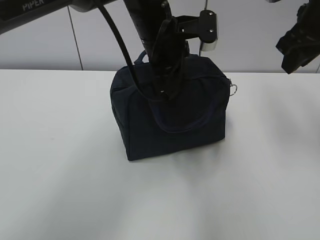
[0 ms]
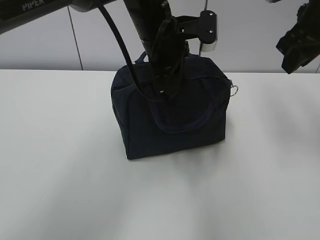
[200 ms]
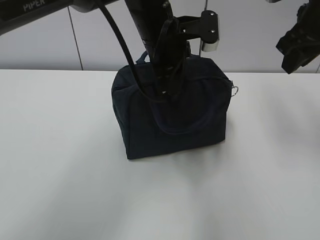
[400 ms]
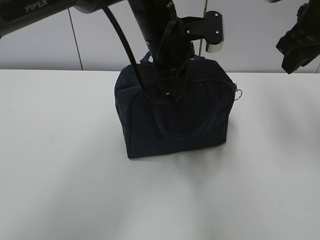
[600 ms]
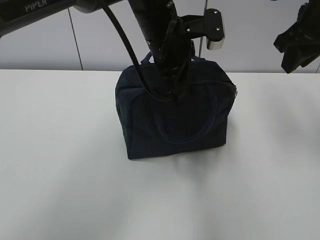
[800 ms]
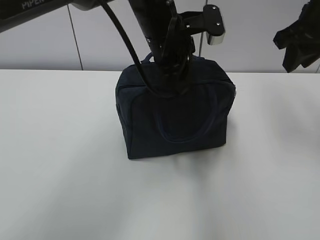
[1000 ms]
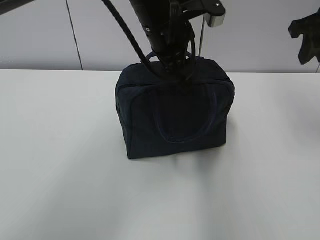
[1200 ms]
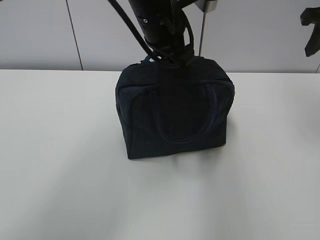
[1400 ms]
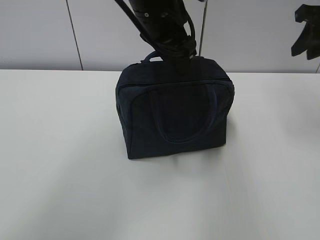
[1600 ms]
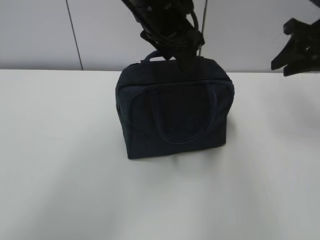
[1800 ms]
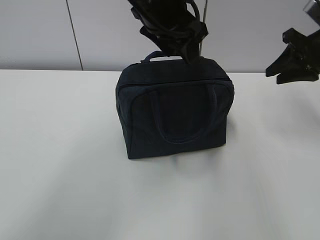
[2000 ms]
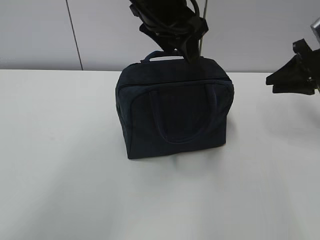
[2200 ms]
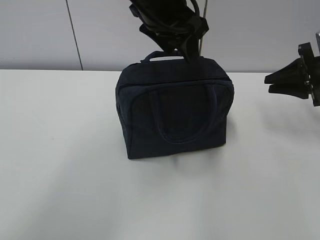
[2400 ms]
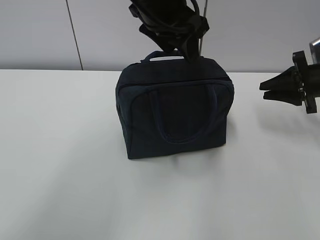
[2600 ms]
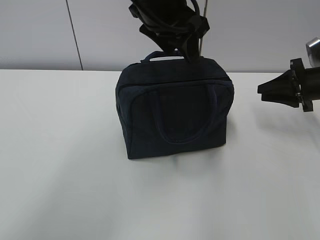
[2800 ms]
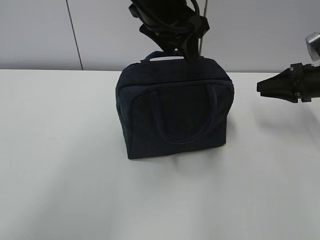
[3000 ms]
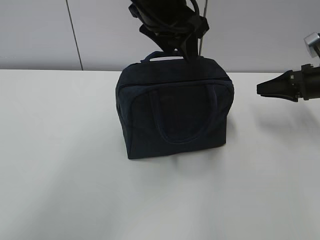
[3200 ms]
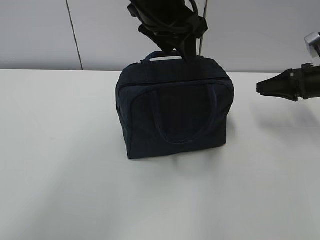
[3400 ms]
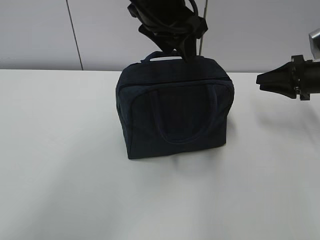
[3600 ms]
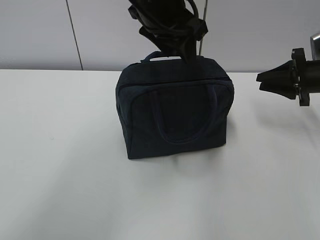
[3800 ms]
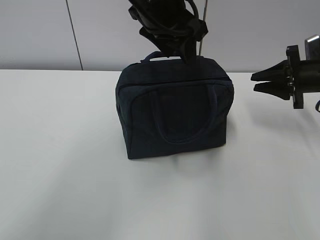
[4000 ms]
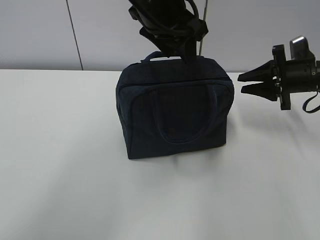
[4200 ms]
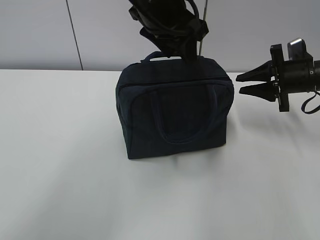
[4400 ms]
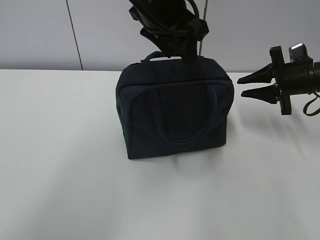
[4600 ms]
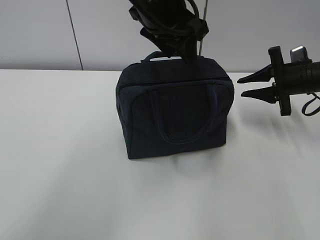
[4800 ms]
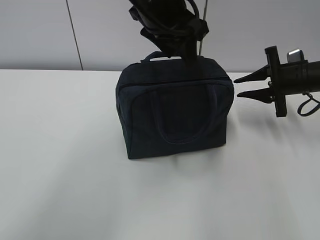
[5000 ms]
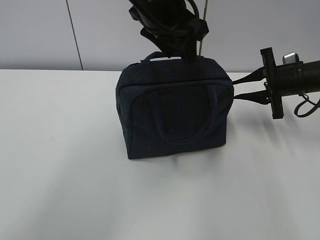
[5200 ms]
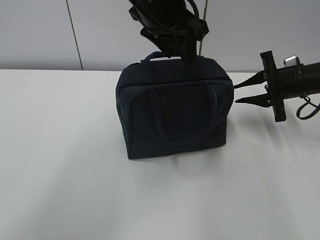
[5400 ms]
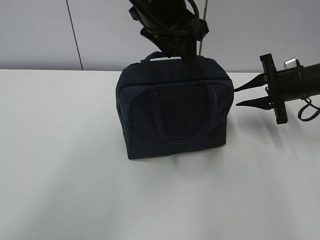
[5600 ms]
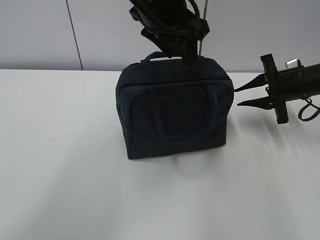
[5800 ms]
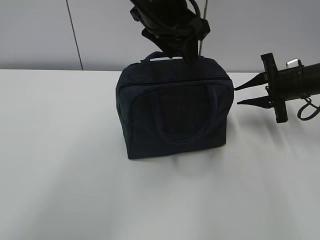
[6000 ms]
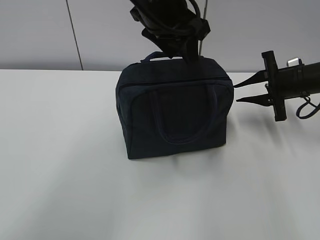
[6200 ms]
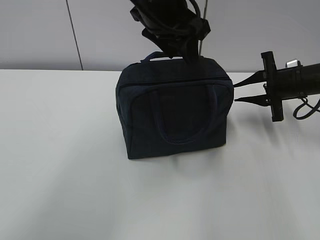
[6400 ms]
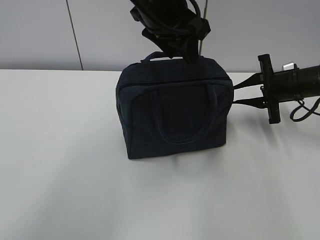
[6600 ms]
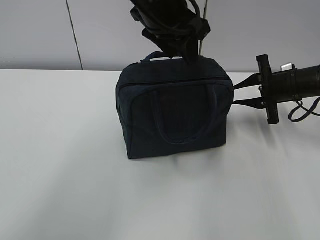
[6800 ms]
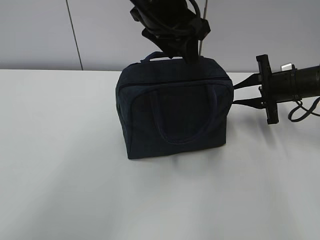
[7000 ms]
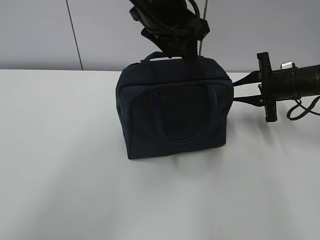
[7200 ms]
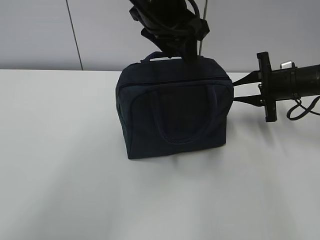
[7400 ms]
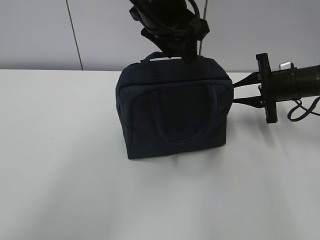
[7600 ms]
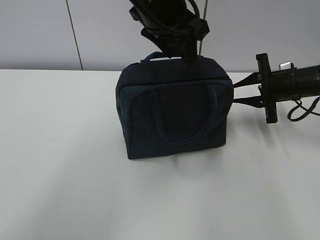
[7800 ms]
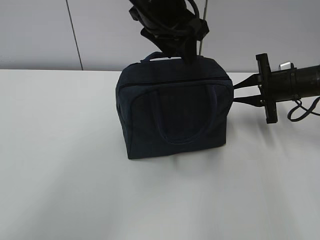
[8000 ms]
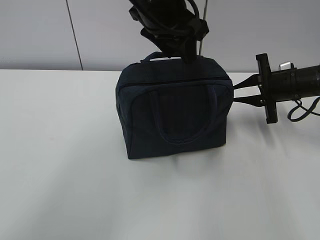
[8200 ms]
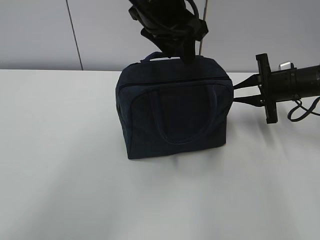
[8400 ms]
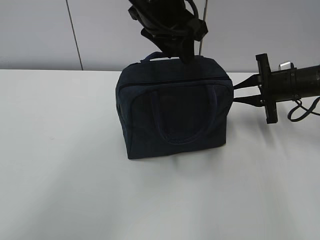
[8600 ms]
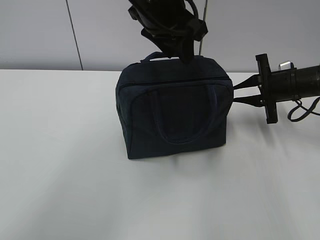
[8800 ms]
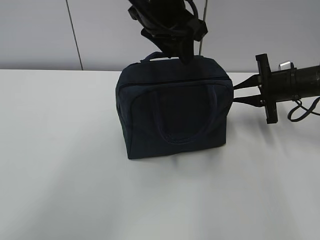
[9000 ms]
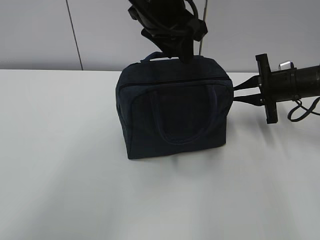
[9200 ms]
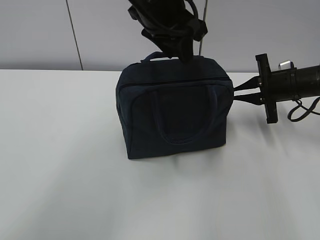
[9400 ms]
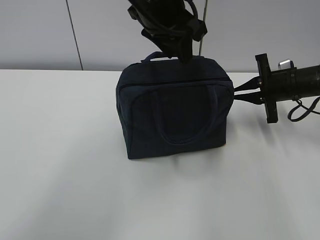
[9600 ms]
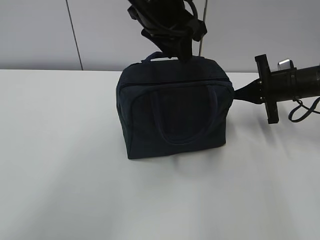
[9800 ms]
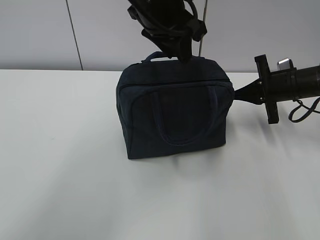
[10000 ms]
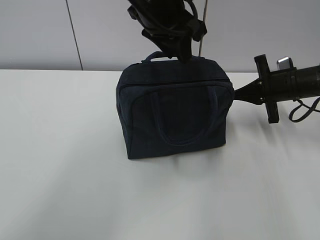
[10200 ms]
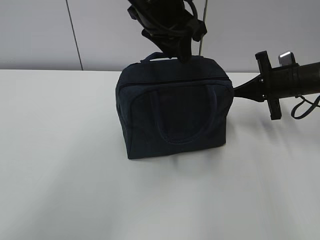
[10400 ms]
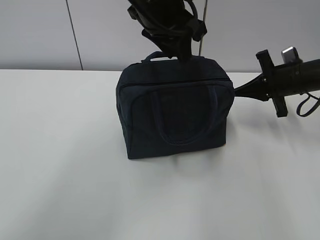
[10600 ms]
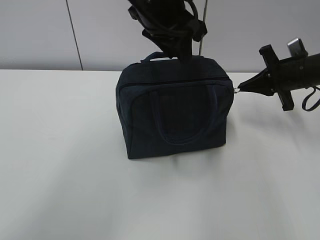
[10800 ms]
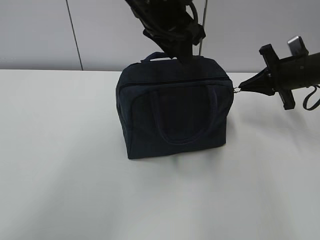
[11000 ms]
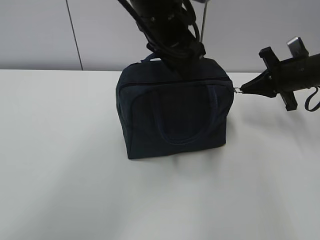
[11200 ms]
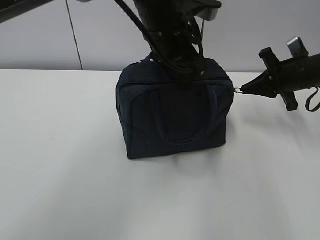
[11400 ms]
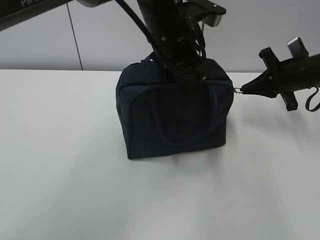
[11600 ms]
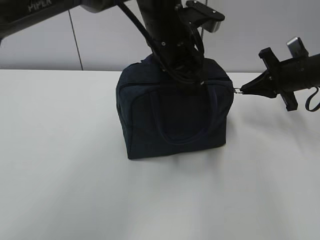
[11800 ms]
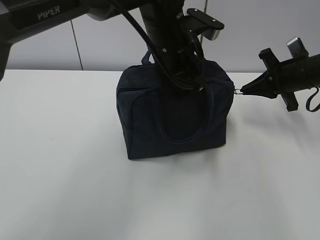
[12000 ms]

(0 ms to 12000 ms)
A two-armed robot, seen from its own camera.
0 ms - 1600 ms: The left gripper opens. Meanwhile the right gripper heads to the right, covering about 5 cm.
1600 ms - 3000 ms: The right gripper goes roughly 15 cm downward.
6000 ms - 7600 ms: The grippers make only small movements.
7600 ms - 9000 ms: The two grippers keep their place.
9000 ms - 10400 ms: The right gripper closes up.
10400 ms - 12000 ms: The left gripper moves downward, approximately 5 cm, and opens and closes again.

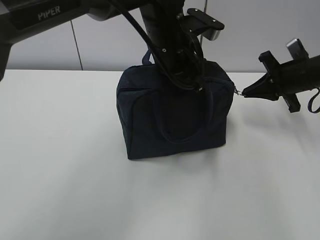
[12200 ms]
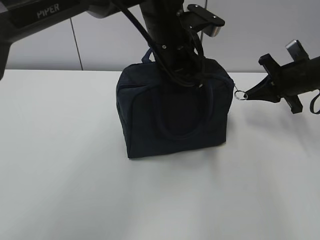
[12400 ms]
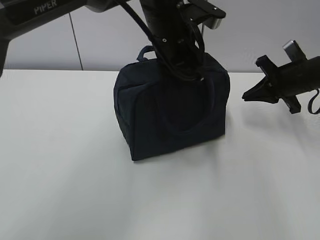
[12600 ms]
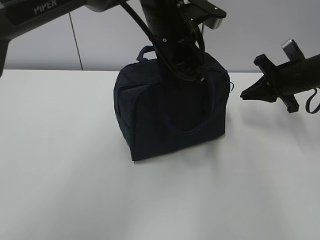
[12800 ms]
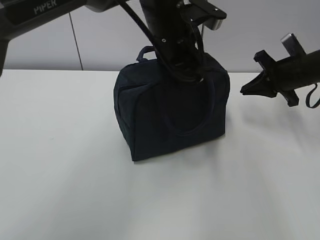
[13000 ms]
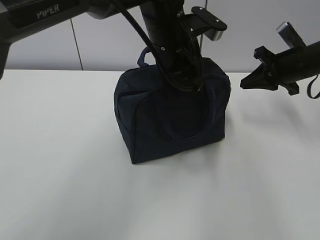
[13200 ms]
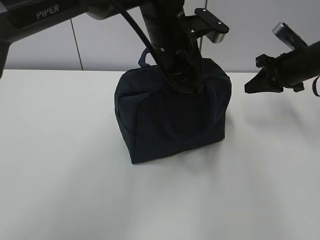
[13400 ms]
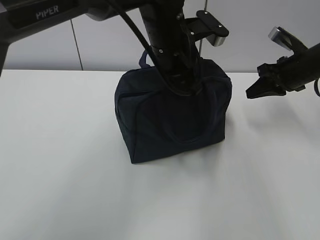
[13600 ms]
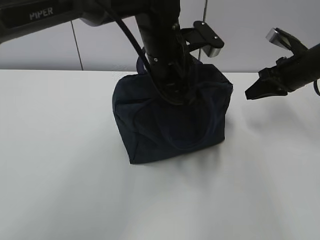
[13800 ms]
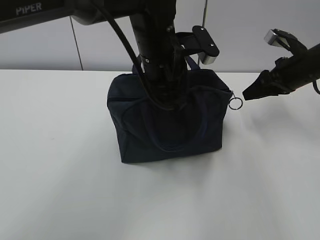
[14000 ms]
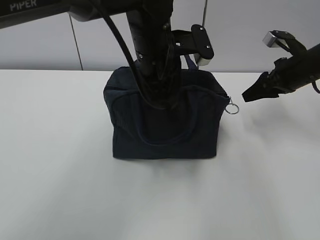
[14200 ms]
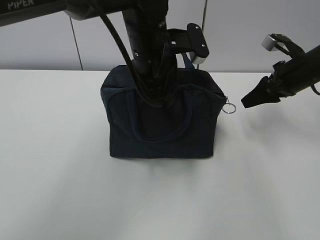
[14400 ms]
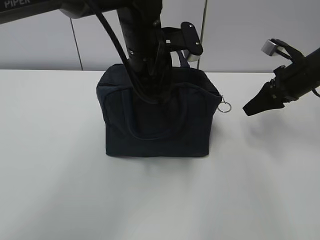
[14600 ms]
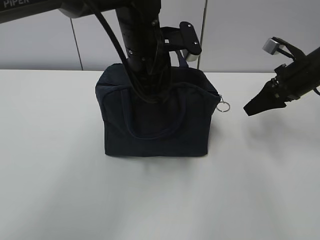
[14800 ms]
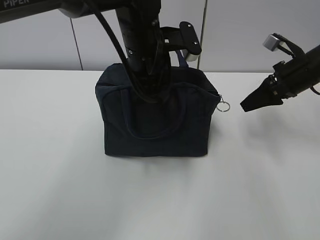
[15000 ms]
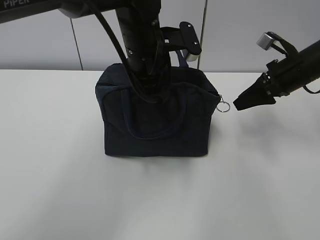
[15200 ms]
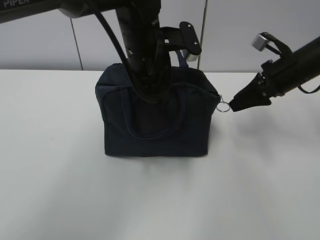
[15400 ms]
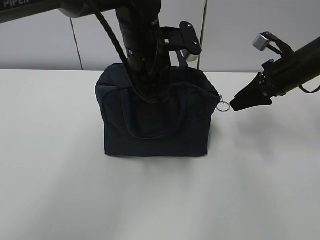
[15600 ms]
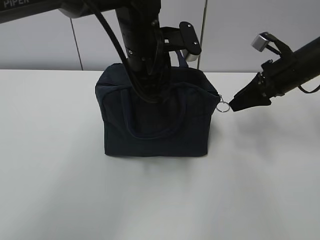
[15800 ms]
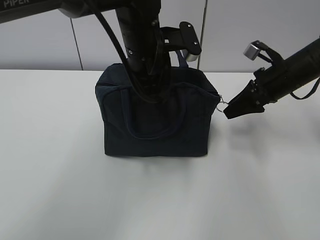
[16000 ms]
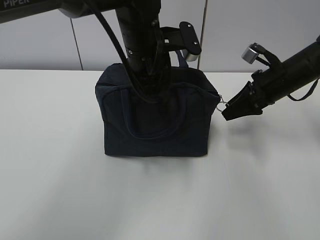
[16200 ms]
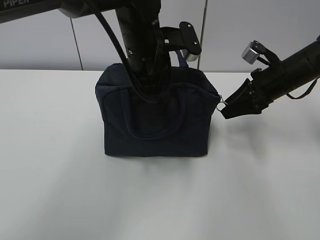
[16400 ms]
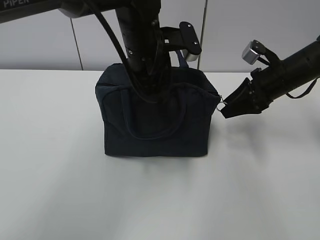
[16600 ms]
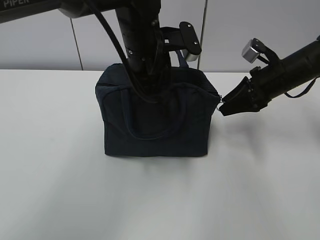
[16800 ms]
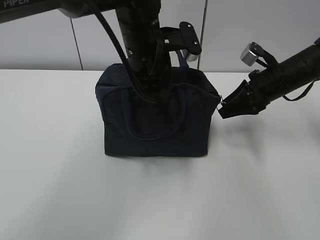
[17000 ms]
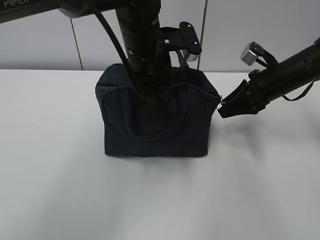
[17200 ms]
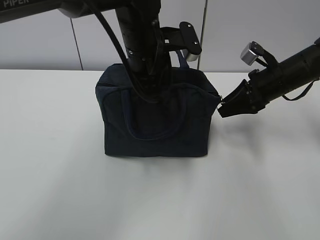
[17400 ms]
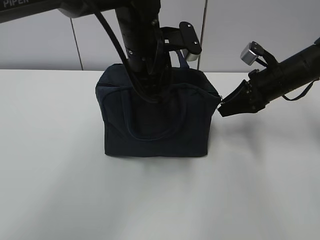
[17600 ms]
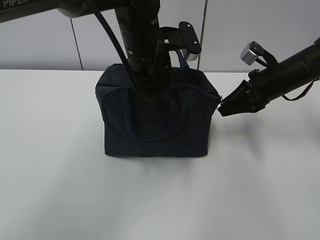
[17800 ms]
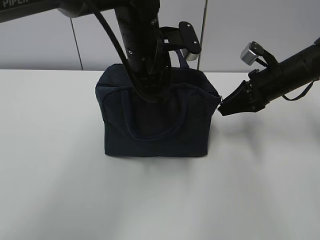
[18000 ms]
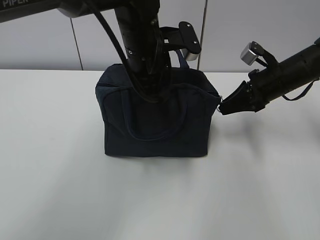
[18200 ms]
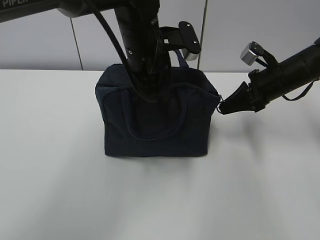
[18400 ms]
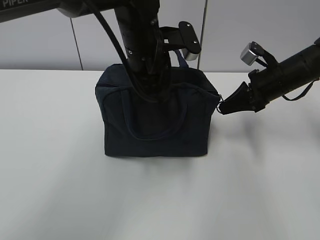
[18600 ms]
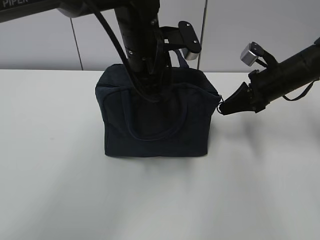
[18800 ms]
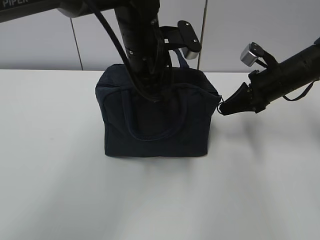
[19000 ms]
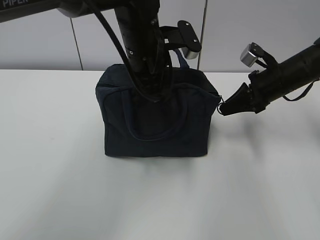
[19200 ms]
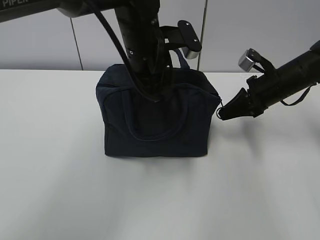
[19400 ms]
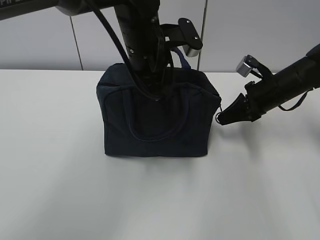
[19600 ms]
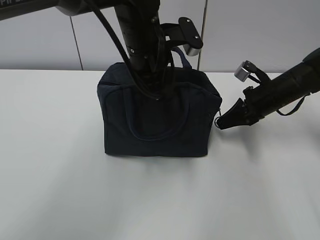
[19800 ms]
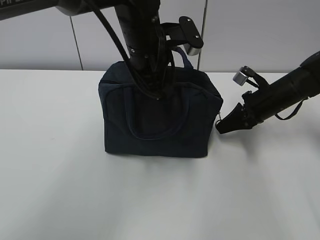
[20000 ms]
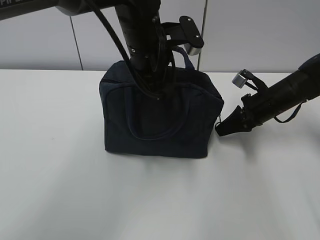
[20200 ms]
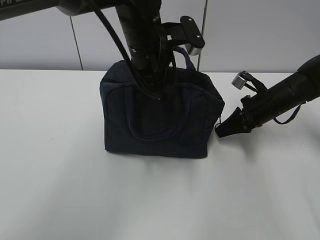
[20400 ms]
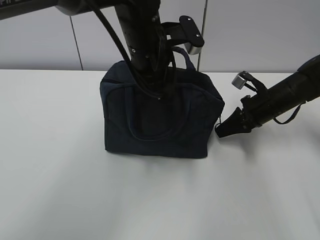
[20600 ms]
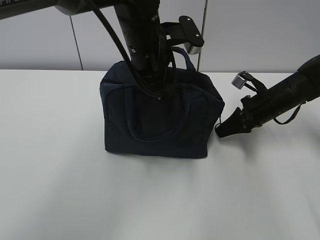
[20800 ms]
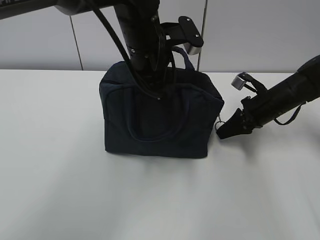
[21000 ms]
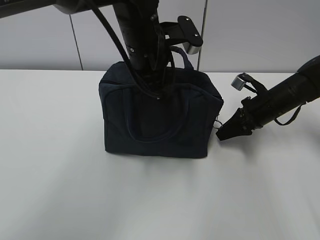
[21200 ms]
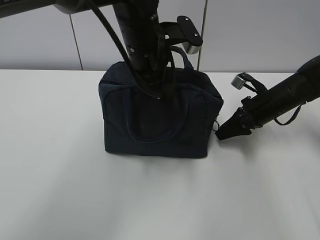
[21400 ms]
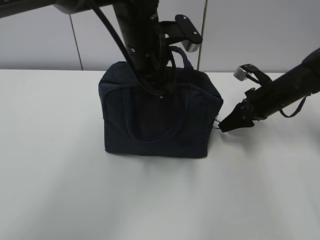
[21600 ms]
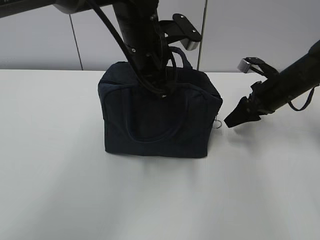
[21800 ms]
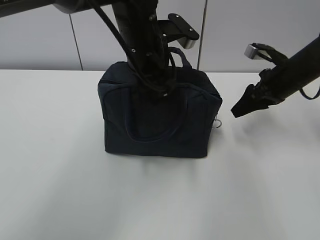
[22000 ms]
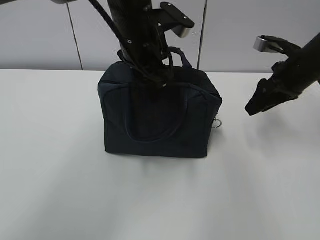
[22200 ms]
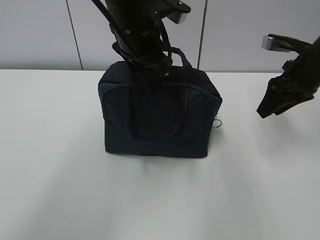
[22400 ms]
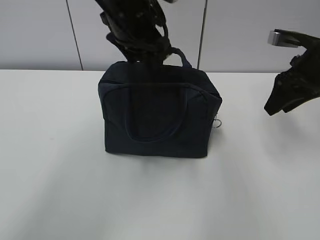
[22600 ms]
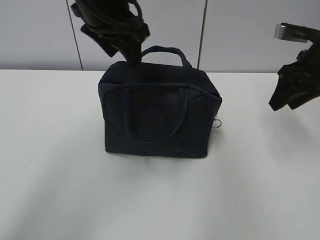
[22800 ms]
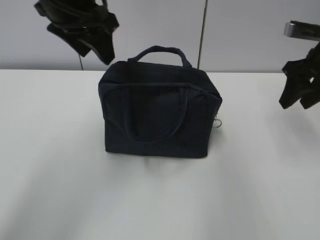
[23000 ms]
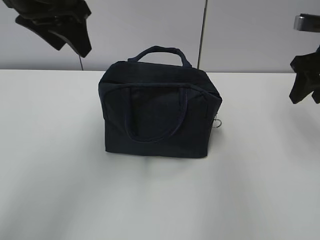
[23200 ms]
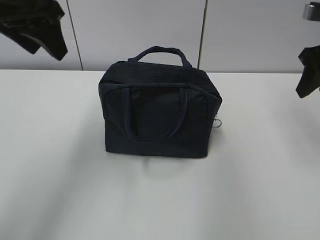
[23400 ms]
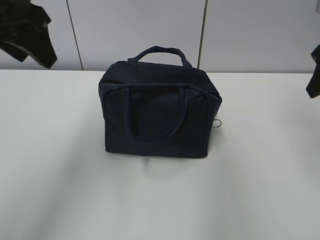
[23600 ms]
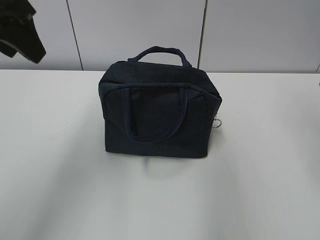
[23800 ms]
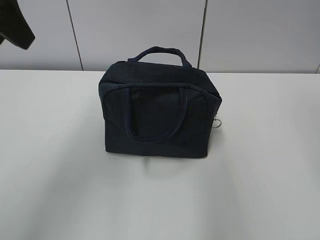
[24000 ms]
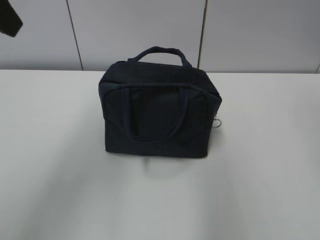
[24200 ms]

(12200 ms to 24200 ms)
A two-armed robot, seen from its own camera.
Step, 12200 ms - 23000 ms: zip up the zipper to close the bag.
13800 ms - 15200 ms: The right gripper opens.
15200 ms - 16600 ms: The grippers make only small movements.
16600 ms - 18200 ms: The right gripper closes.
18200 ms - 19800 ms: There are only small adjustments of the grippers.
19800 ms - 21200 ms: There are only small adjustments of the grippers.
21200 ms - 22600 ms: The right gripper goes some 15 cm upward, and opens, while the left gripper goes roughly 5 cm upward, and opens.
22600 ms - 24200 ms: The left gripper is displaced to the left, backward and upward by some 25 cm. The right gripper travels upward and backward by some 20 cm.
